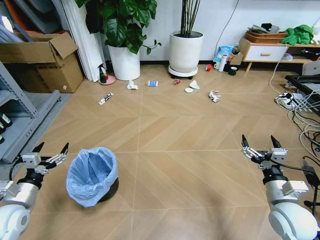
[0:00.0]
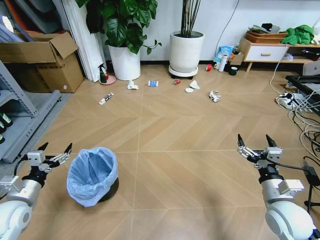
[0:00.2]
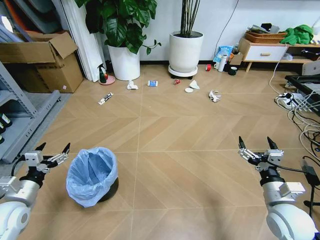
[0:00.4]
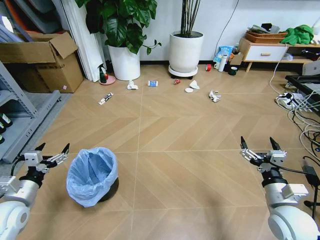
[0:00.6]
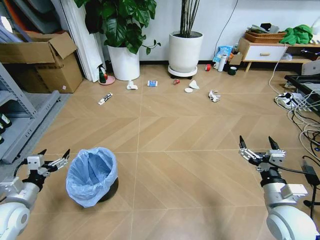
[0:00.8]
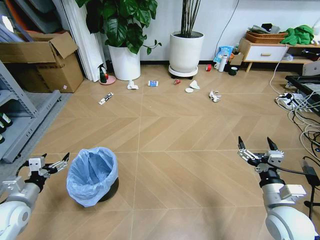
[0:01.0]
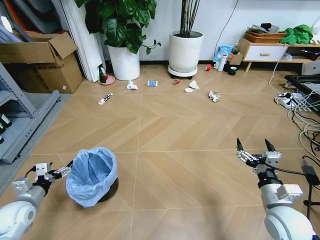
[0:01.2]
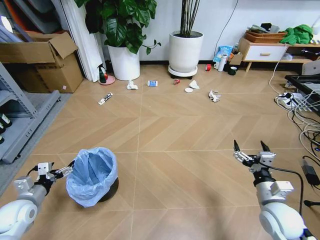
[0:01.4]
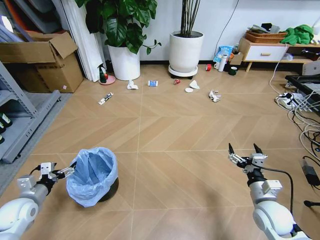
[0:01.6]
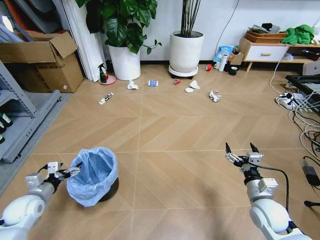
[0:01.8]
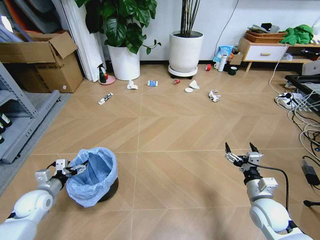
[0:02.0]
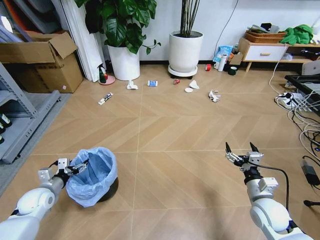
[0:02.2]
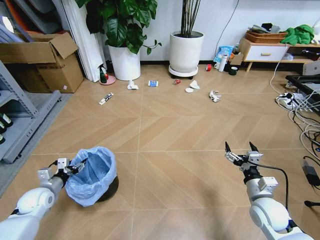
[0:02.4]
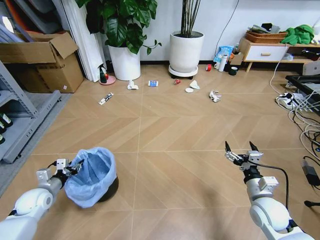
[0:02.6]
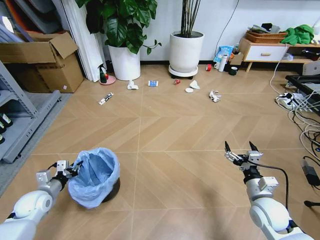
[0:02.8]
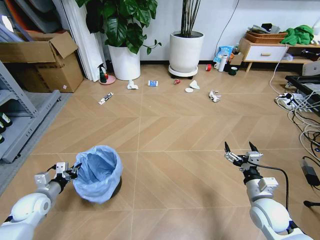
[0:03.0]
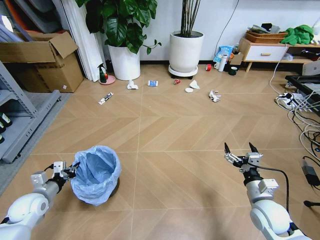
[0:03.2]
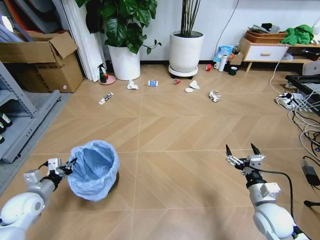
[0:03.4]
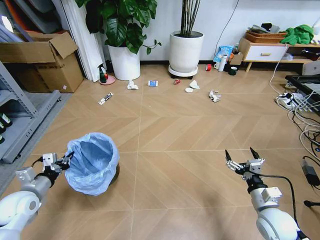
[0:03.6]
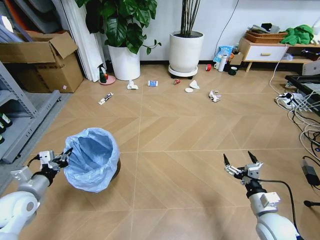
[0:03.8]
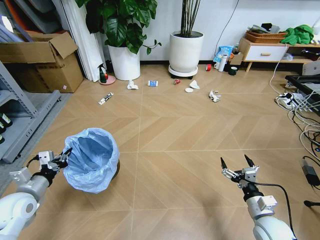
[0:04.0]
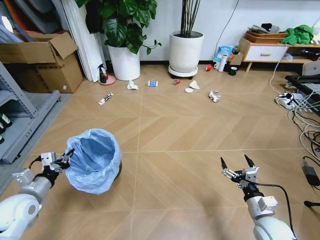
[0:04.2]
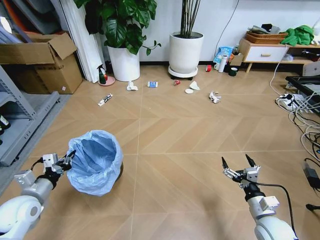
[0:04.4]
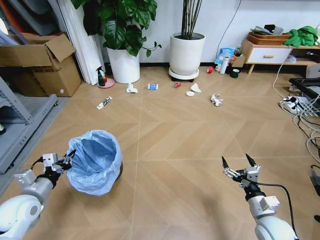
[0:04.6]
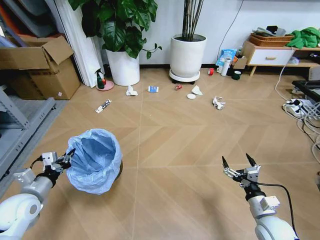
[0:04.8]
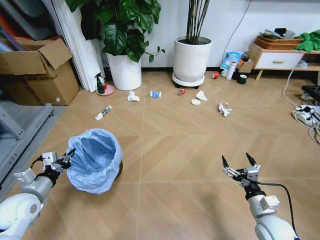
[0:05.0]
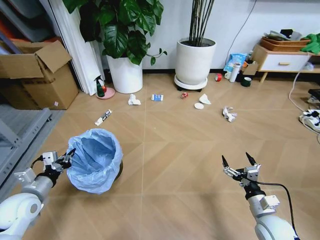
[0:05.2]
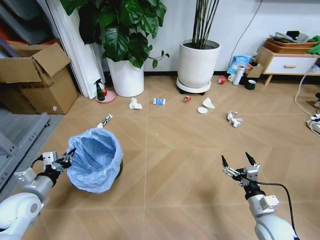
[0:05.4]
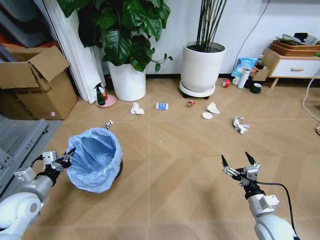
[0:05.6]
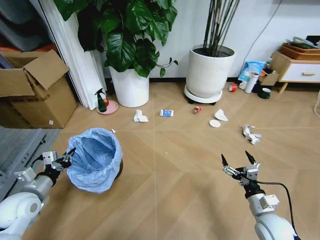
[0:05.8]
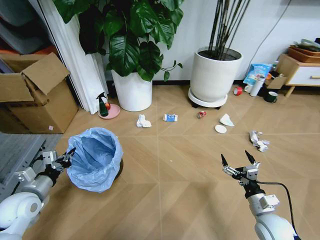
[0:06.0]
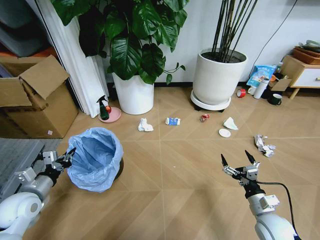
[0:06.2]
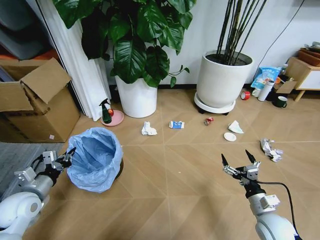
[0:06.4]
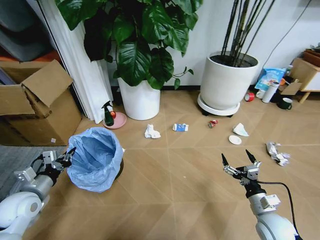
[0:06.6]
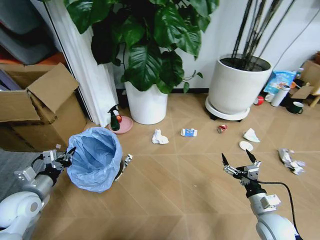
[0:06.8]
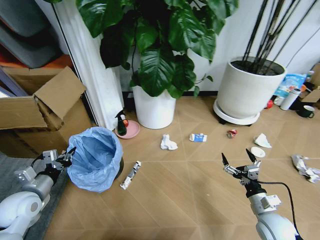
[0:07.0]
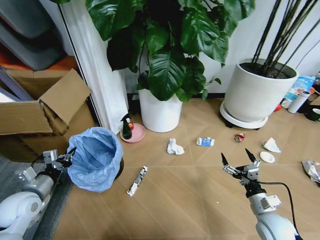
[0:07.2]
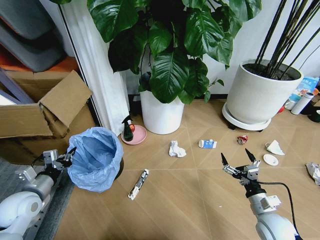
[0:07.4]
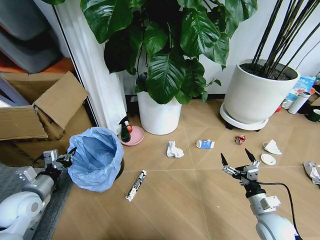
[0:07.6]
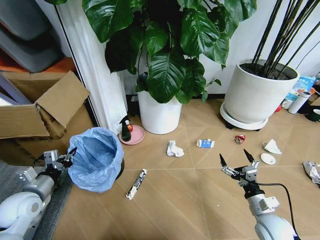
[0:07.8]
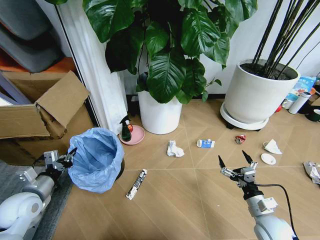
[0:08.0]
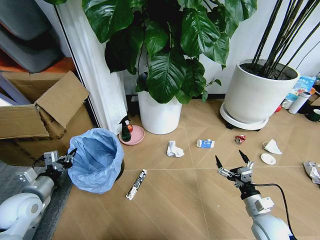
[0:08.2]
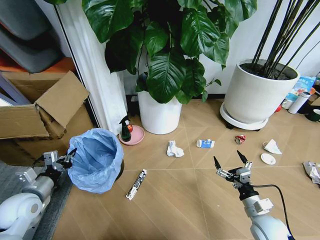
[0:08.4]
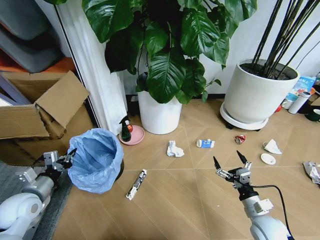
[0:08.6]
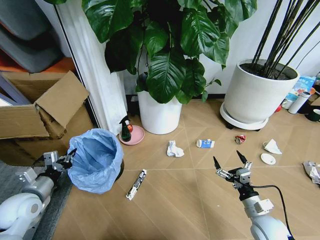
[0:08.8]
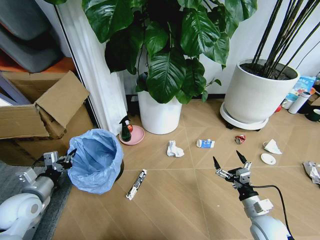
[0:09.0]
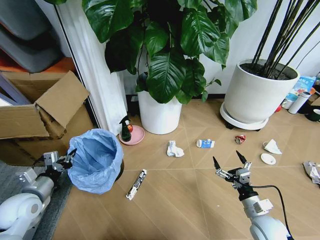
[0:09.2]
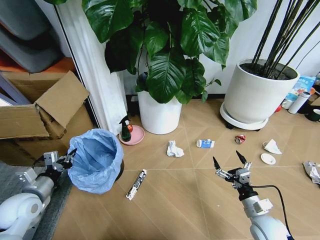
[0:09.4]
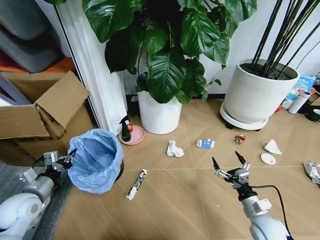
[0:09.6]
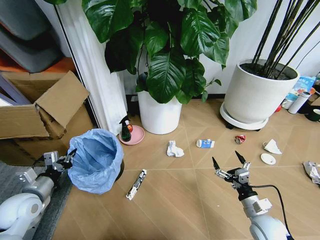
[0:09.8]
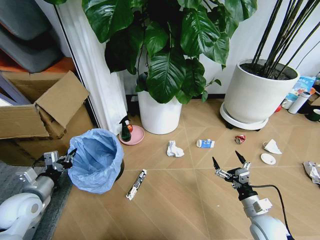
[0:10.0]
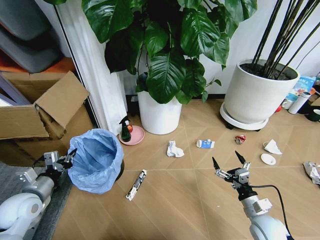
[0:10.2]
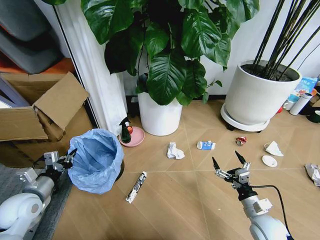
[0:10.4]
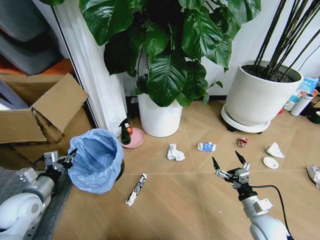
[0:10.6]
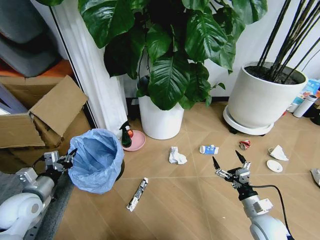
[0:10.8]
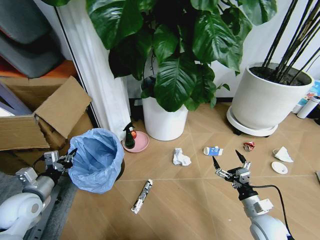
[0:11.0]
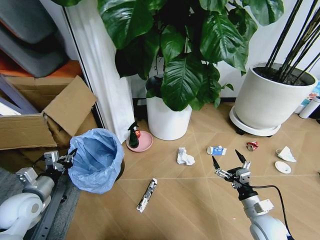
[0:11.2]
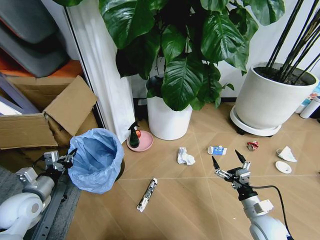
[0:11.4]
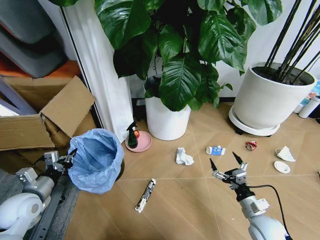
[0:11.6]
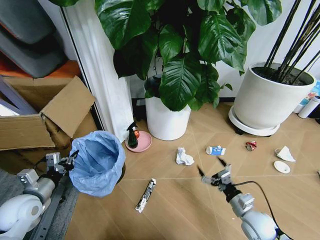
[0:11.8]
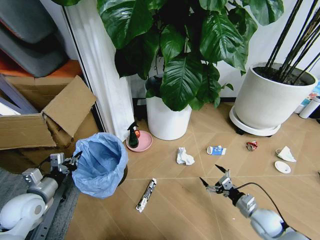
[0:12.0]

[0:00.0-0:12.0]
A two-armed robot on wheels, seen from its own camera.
Task of the whole recording: Pick up the trash bin and place the garbage on the floor into it.
0:01.6 to 0:03.0: The left gripper closes up.
0:03.0 to 0:04.4: The right gripper changes place by about 5 cm. Meanwhile the left gripper heads upward, covering roughly 10 cm.
0:07.6 to 0:09.0: The grippers make only small movements.
0:09.0 to 0:10.4: Both grippers stay about where they are.

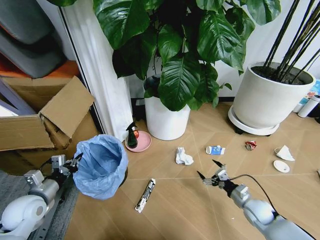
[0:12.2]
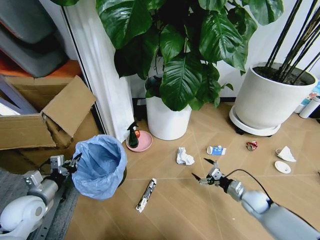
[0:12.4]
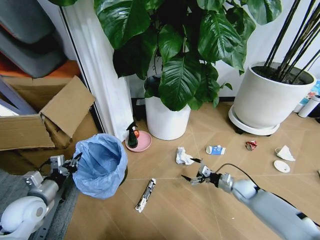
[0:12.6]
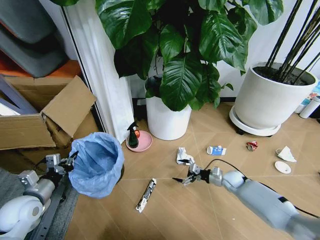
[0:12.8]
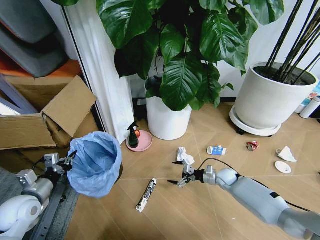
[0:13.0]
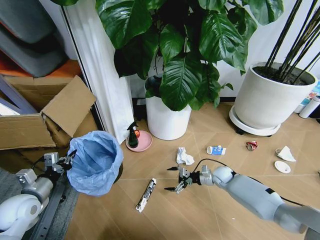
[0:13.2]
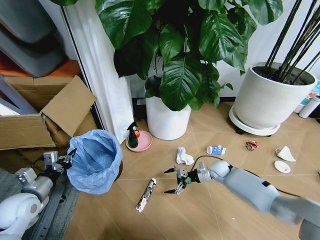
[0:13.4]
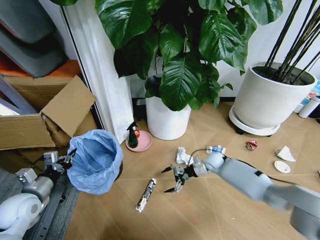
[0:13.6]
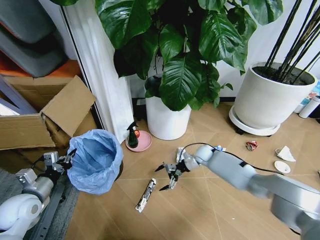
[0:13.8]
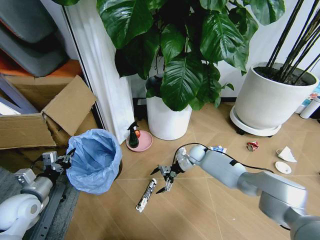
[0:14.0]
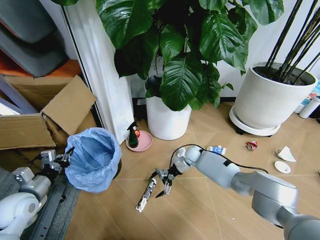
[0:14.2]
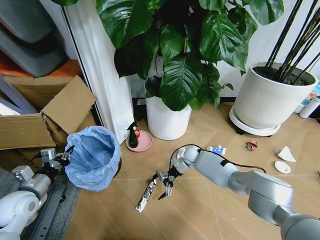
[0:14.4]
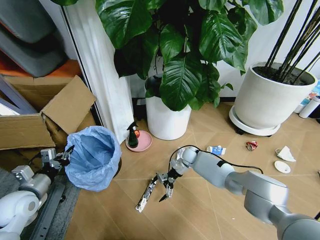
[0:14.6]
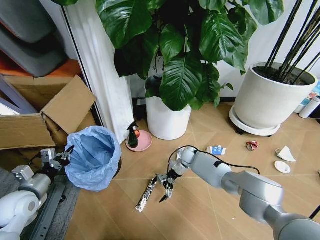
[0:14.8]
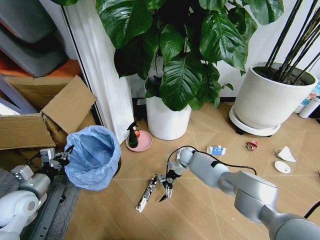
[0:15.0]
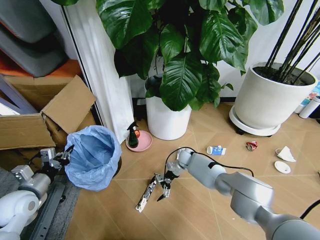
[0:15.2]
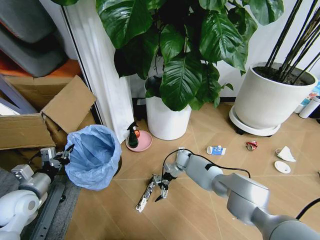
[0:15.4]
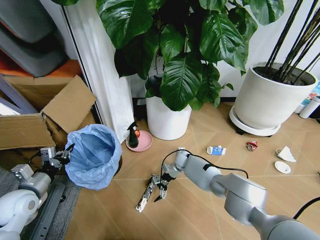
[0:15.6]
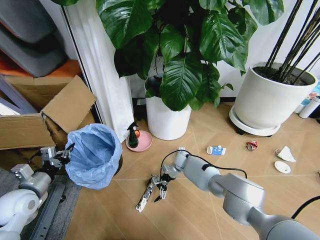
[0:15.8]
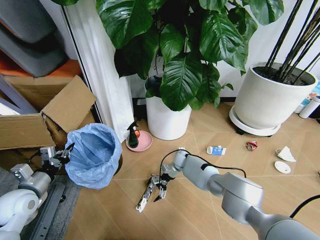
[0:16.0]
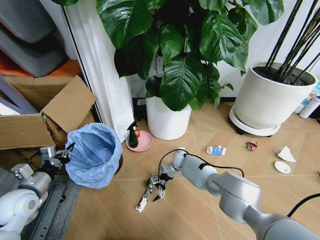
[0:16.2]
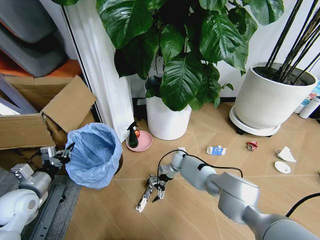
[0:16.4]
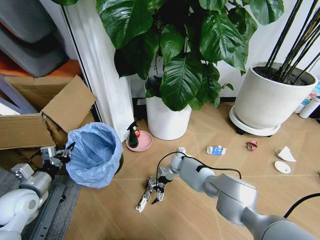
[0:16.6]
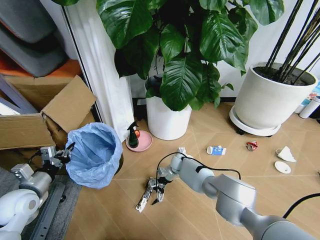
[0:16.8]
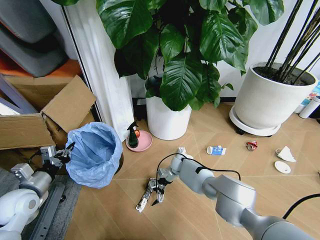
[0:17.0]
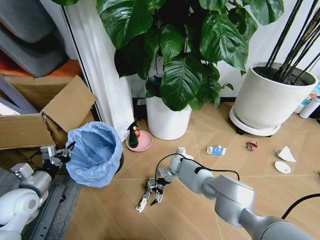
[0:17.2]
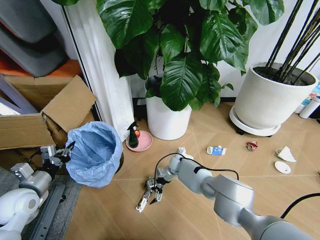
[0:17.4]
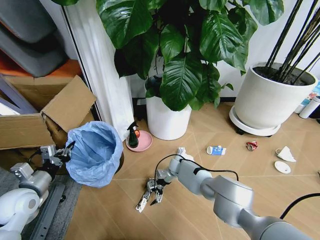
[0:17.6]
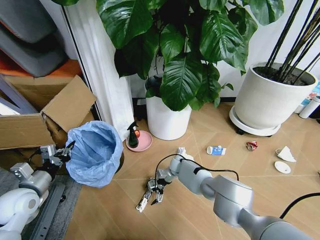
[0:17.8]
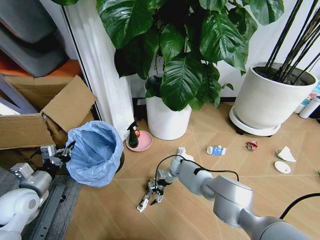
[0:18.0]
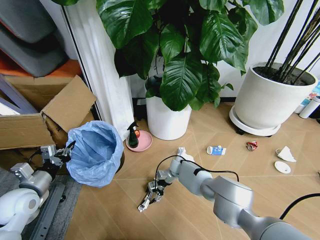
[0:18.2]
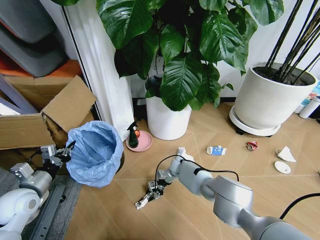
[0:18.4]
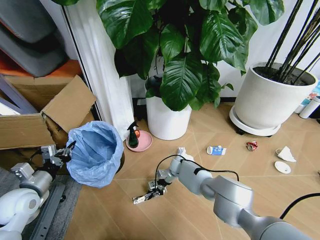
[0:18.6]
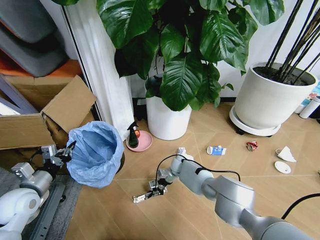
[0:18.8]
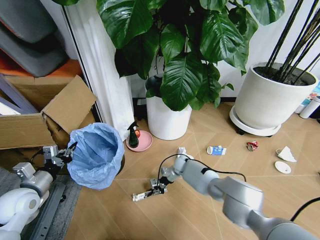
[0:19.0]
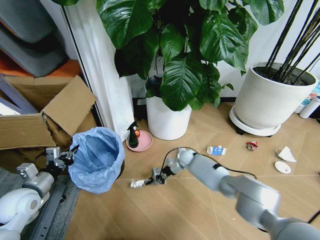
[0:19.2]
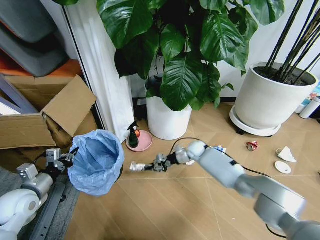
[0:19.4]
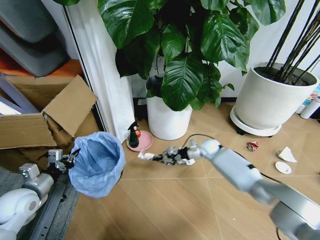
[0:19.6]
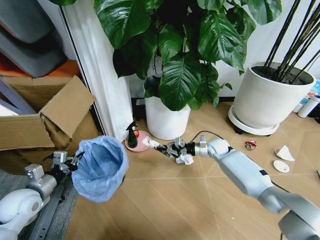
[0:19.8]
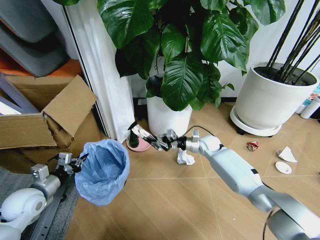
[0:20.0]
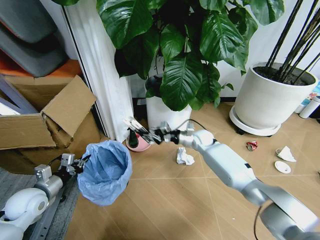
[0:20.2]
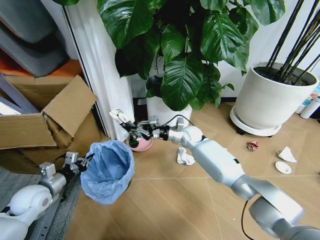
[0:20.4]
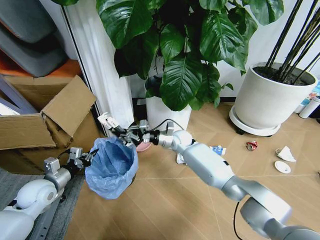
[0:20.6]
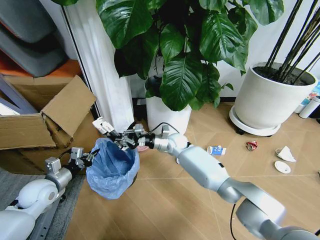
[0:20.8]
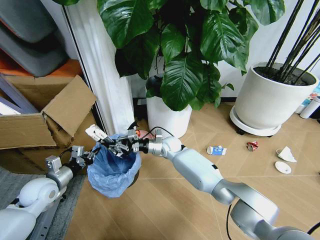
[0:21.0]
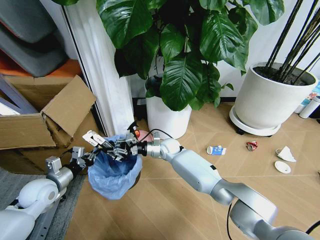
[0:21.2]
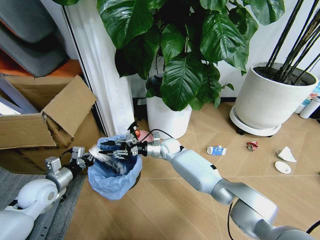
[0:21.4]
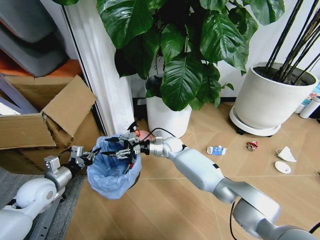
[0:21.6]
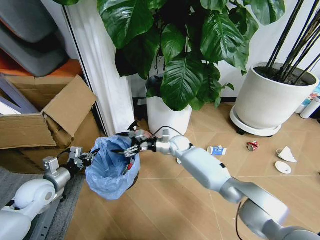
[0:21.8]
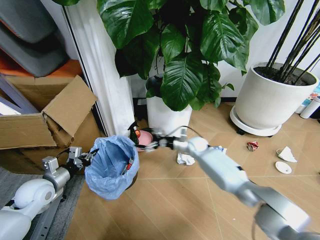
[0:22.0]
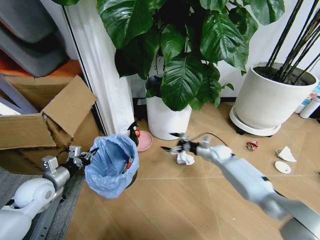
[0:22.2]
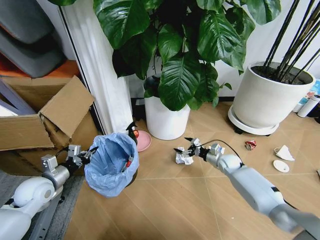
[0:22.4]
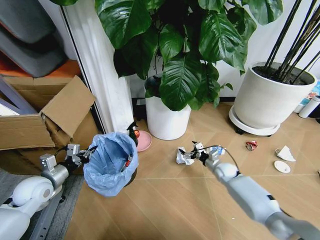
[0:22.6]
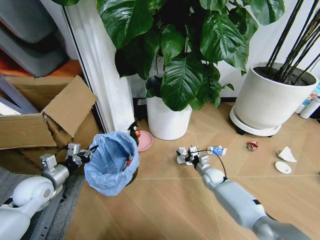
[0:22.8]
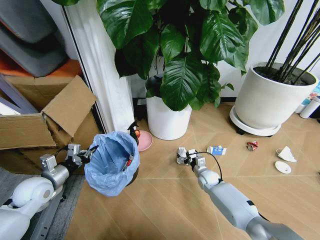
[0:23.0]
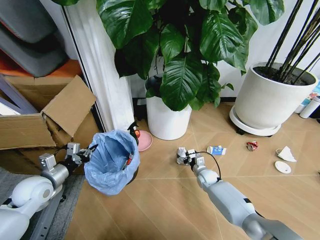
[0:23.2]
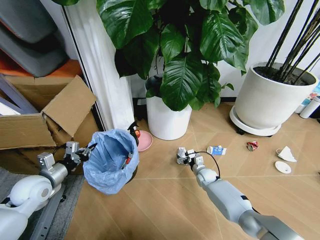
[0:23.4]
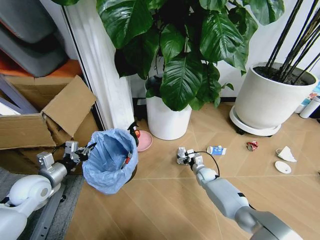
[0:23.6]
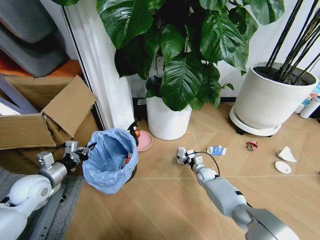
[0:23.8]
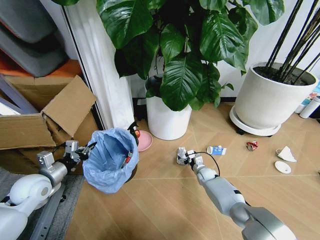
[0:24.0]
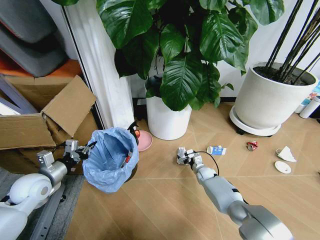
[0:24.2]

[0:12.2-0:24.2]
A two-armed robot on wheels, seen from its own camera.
Task of the whole recording: Pick up the trash bin and place the garbage on the floor into it.
0:12.2 to 0:13.8: The right gripper is displaced forward and to the left by approximately 30 cm.
0:13.8 to 0:15.2: The right gripper travels to the left by some 10 cm.
0:15.2 to 0:16.6: There are only small adjustments of the grippers.
0:16.6 to 0:18.2: The grippers stay close to where they were, moving slightly.
0:18.2 to 0:19.8: The right gripper shifts some 20 cm to the right and upward, and closes its fingers.
0:19.8 to 0:21.2: The right gripper travels to the left by roughly 25 cm.
0:21.2 to 0:22.6: The right gripper shifts roughly 30 cm to the right and downward, and opens its fingers.
0:22.6 to 0:24.2: The right gripper heads downward and to the left, covering approximately 10 cm.
